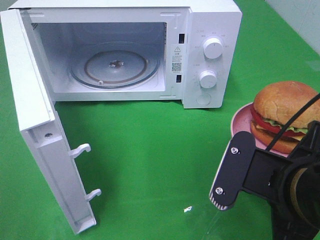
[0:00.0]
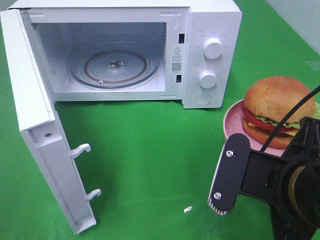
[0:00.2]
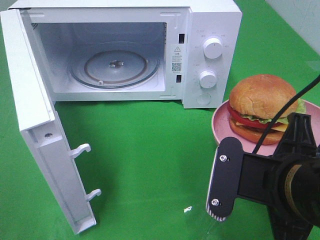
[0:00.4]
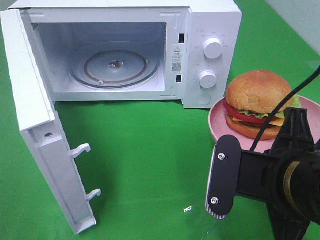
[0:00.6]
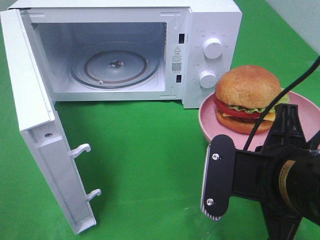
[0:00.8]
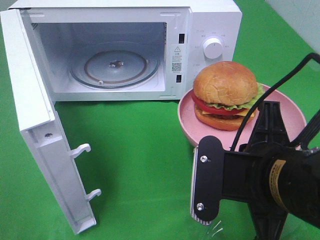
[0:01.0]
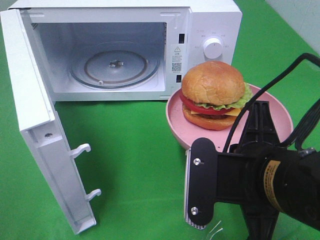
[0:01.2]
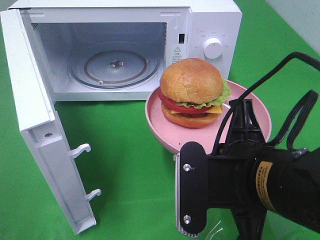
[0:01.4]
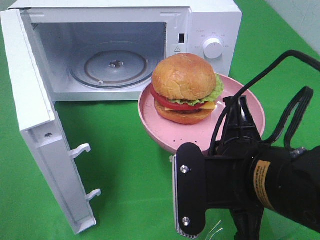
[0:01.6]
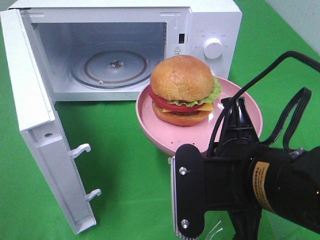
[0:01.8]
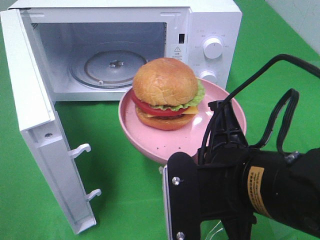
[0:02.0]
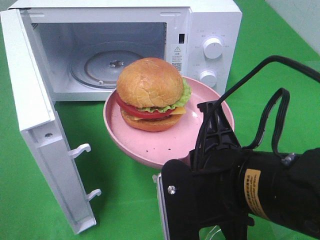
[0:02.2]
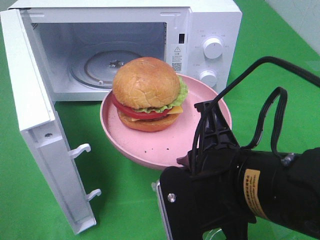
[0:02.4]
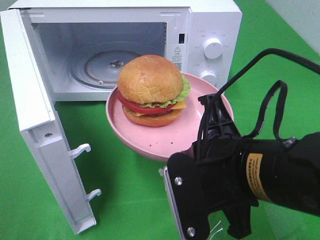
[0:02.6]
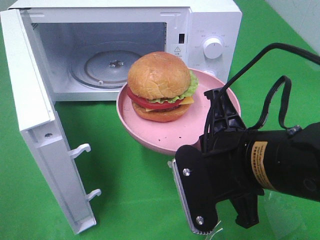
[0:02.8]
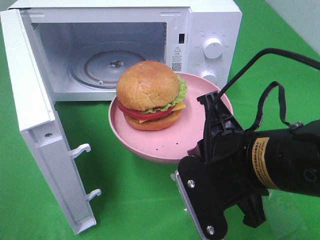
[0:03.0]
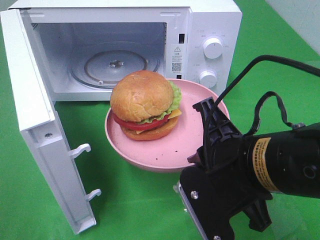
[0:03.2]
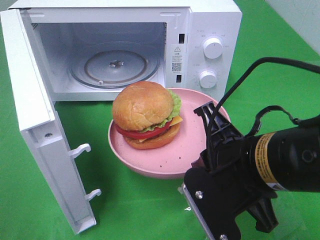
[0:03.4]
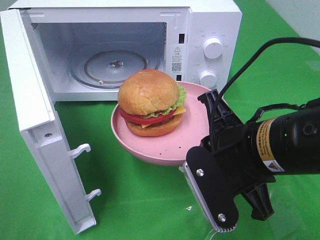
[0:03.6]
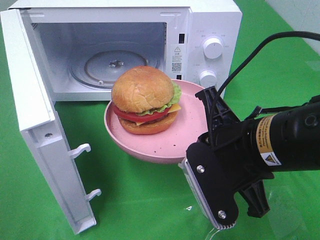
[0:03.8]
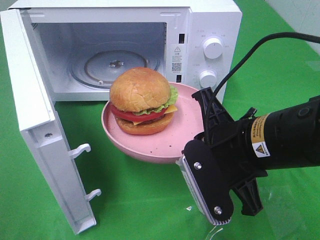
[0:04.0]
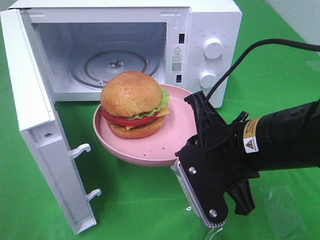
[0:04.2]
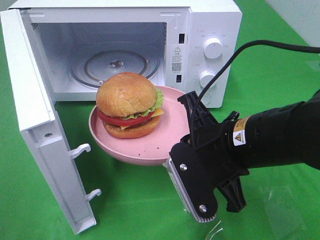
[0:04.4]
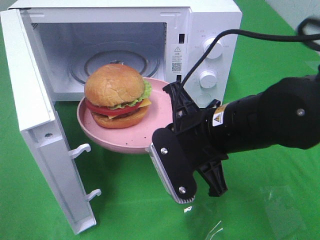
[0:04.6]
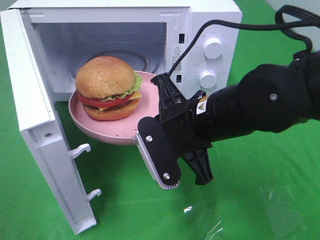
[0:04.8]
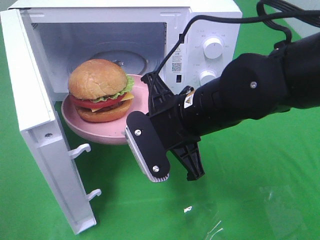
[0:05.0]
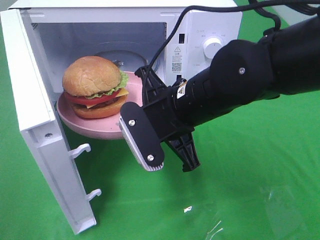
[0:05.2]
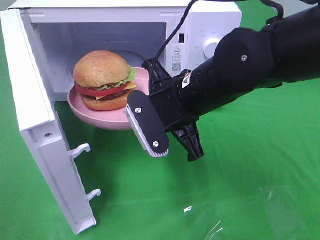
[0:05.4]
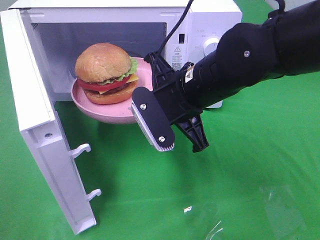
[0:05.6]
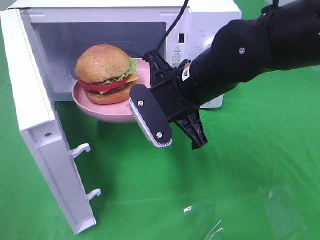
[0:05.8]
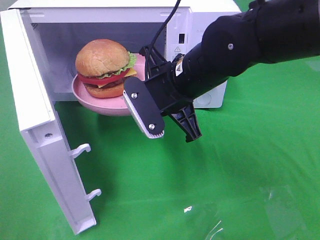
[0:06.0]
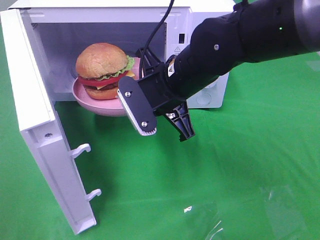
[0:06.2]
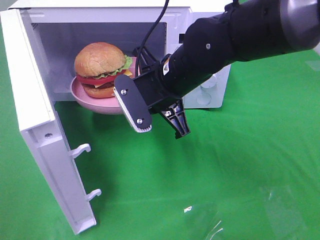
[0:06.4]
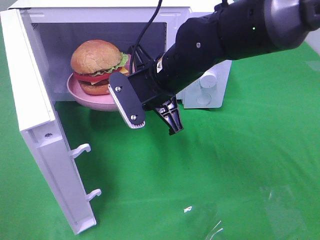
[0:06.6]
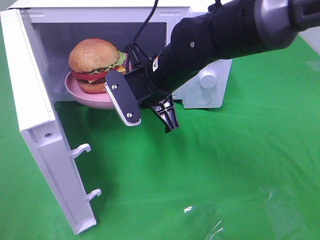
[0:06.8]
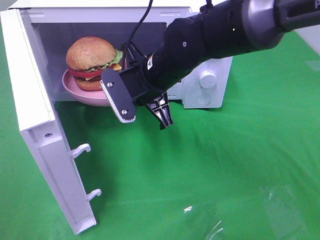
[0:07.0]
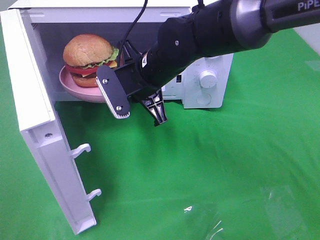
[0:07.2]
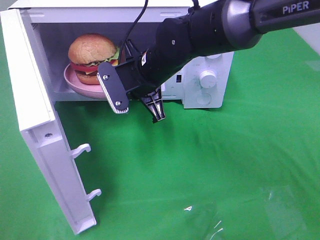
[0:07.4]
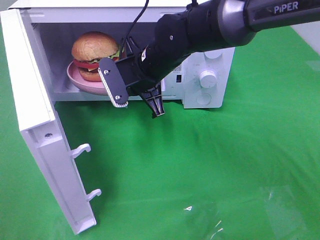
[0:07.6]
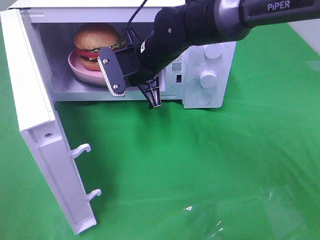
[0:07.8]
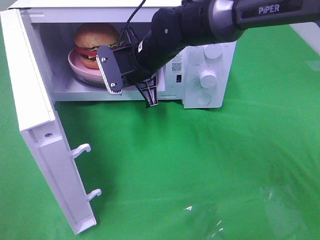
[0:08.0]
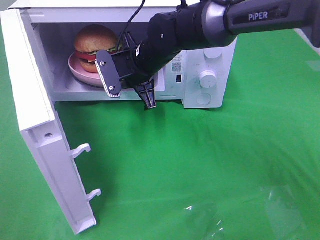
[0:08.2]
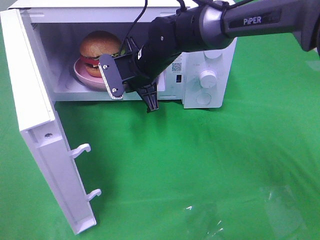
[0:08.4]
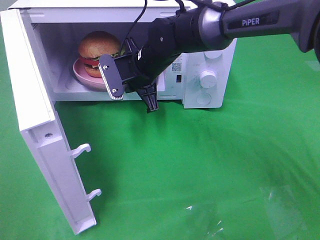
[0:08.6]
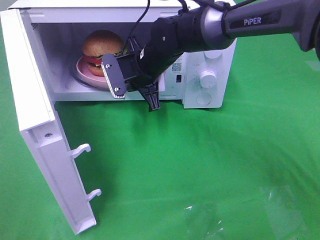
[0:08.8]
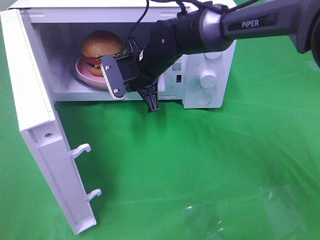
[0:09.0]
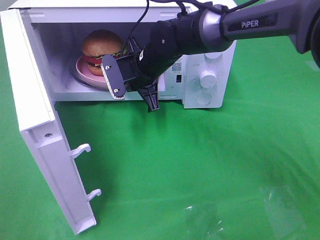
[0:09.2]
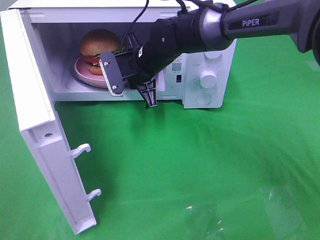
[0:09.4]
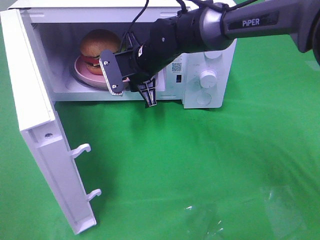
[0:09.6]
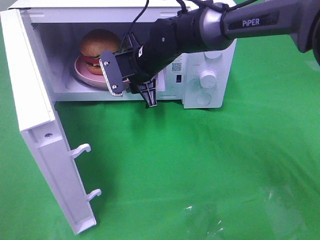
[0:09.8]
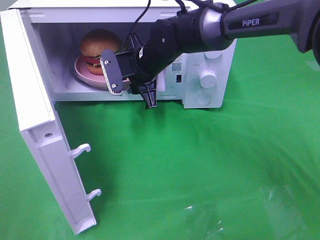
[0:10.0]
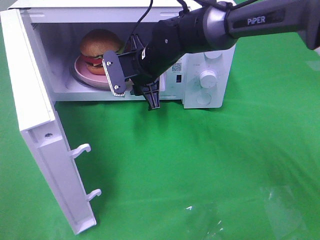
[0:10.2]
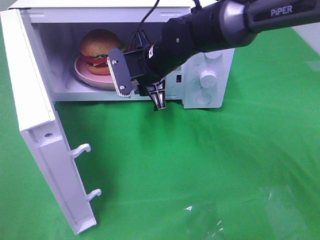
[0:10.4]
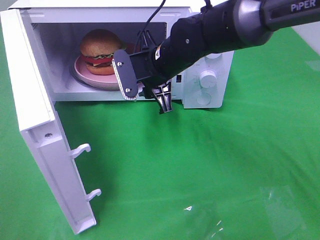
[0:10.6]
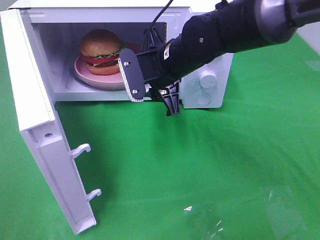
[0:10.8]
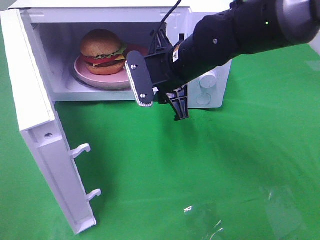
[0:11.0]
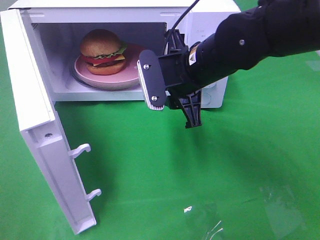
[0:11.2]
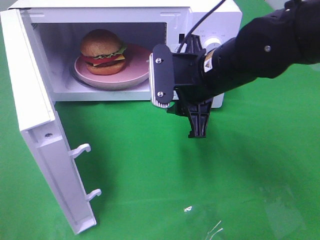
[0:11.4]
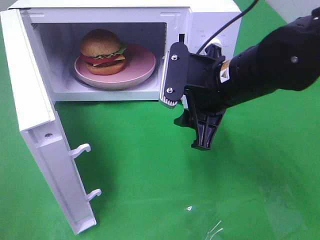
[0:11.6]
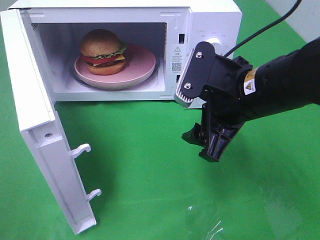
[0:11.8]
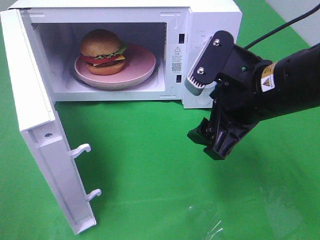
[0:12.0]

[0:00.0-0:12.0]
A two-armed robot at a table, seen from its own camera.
Task of the whole recording: Heat the burger.
Step, 0:00.0 to 0:10.4: Right hand: place the plate in the microwave.
0:04.4 to 0:06.0: The right gripper travels forward and to the left by some 10 cm.
0:06.0 to 0:07.6: The right gripper heads forward, covering some 10 cm.
0:07.6 to 0:09.0: The grippers stay close to where they were, moving slightly.
0:09.0 to 0:10.4: The right gripper opens.
0:10.4 to 0:12.0: The right gripper is displaced backward and to the right by some 20 cm.

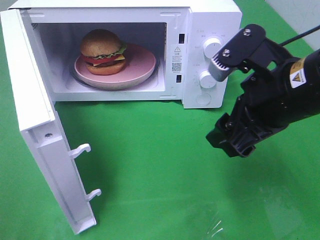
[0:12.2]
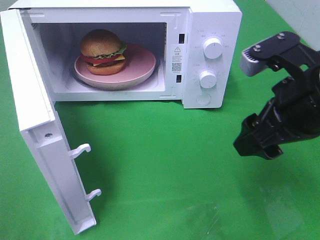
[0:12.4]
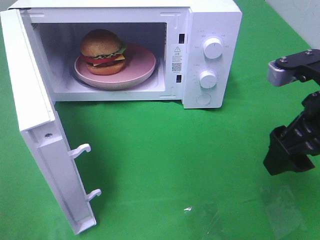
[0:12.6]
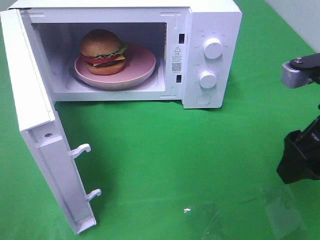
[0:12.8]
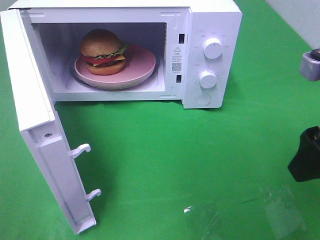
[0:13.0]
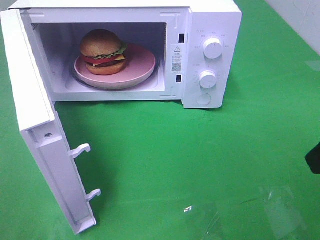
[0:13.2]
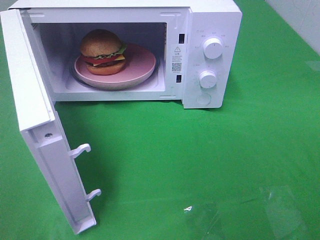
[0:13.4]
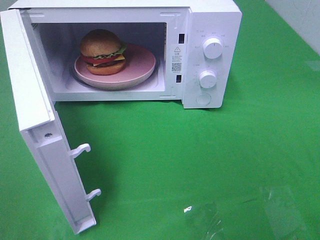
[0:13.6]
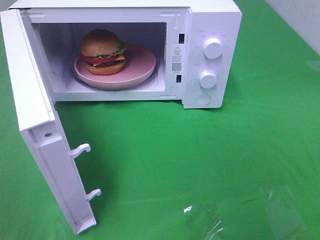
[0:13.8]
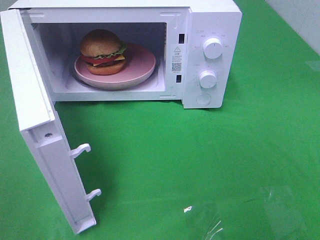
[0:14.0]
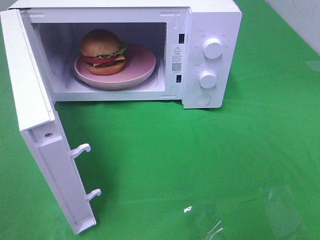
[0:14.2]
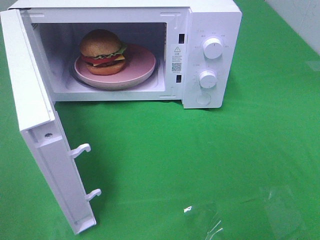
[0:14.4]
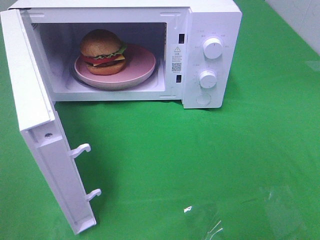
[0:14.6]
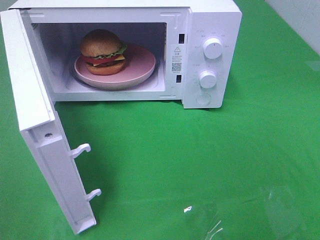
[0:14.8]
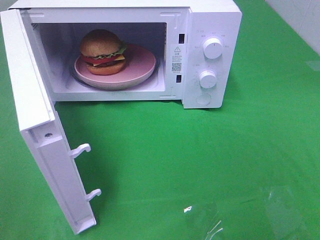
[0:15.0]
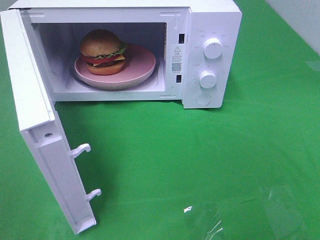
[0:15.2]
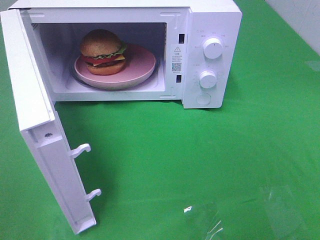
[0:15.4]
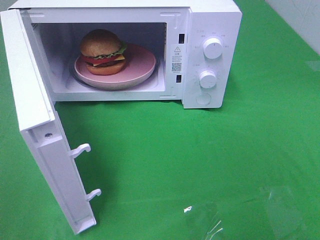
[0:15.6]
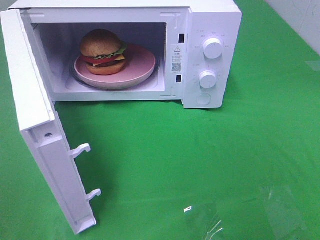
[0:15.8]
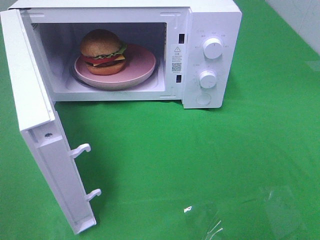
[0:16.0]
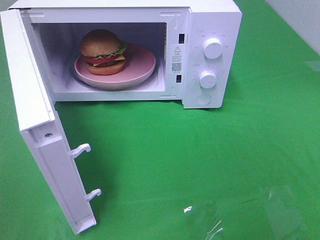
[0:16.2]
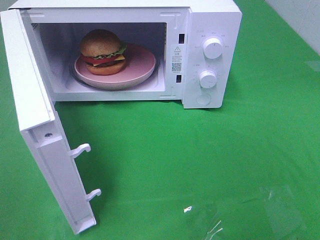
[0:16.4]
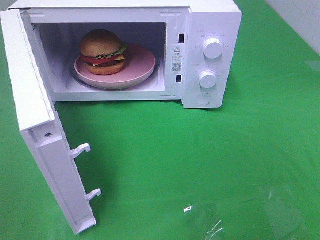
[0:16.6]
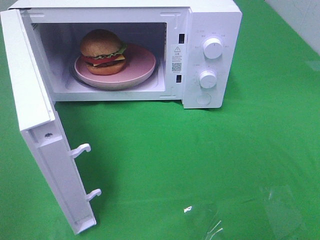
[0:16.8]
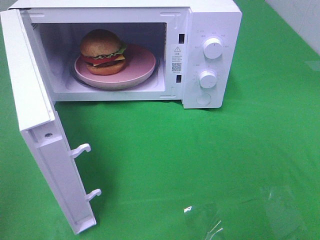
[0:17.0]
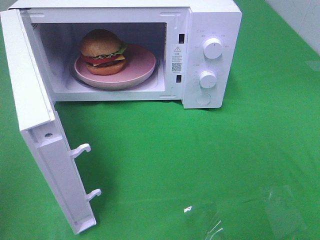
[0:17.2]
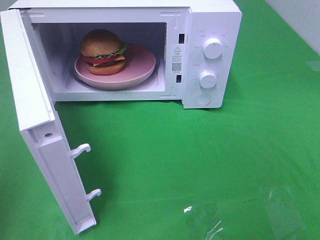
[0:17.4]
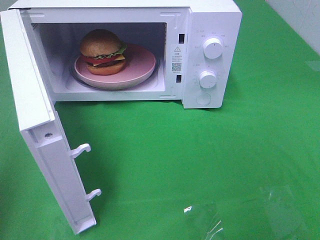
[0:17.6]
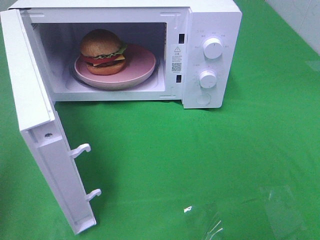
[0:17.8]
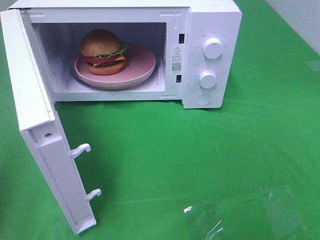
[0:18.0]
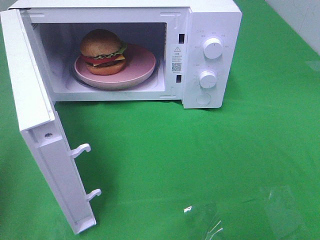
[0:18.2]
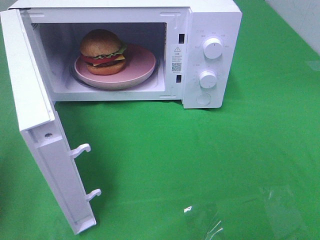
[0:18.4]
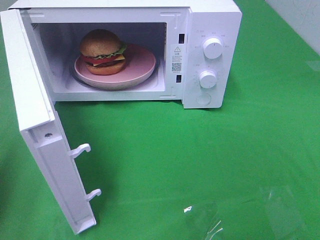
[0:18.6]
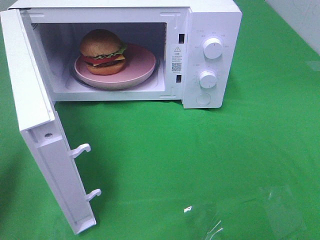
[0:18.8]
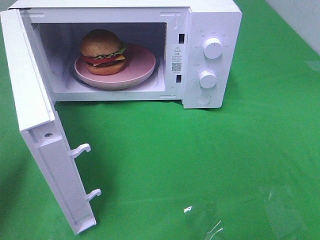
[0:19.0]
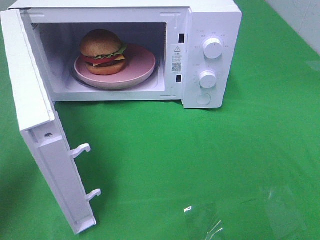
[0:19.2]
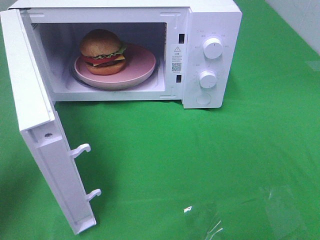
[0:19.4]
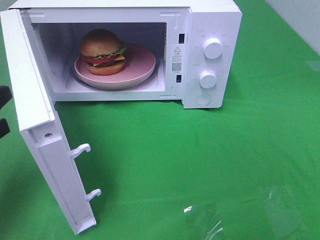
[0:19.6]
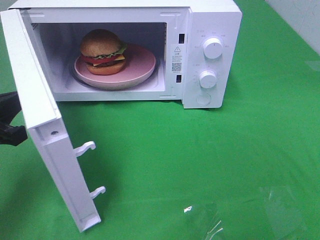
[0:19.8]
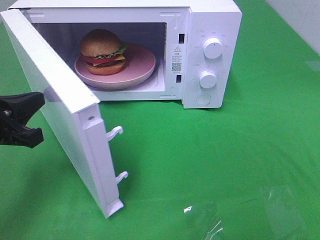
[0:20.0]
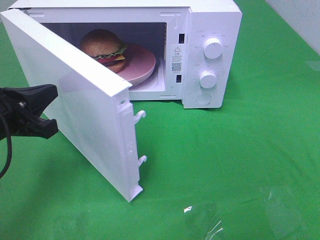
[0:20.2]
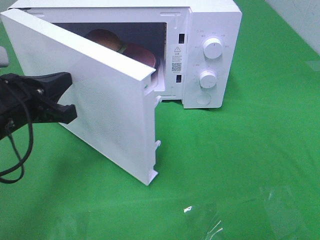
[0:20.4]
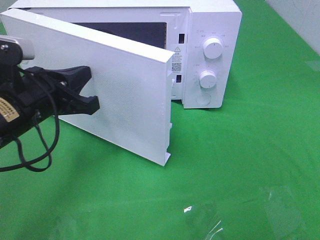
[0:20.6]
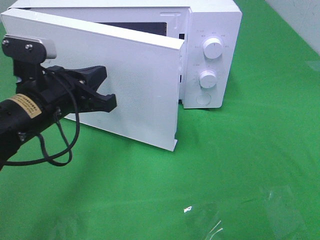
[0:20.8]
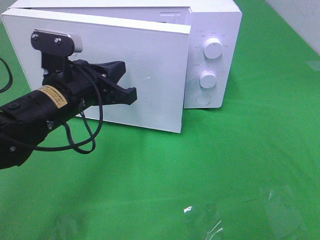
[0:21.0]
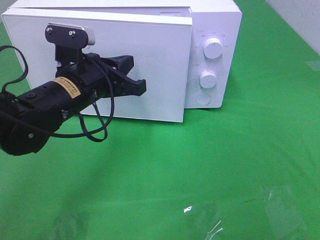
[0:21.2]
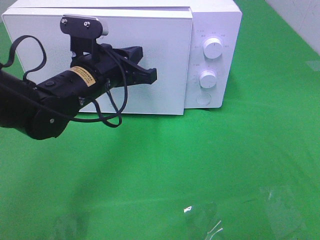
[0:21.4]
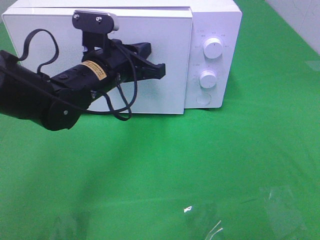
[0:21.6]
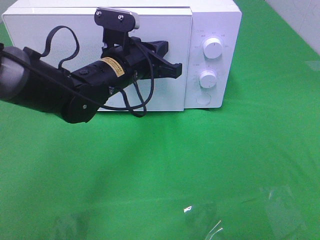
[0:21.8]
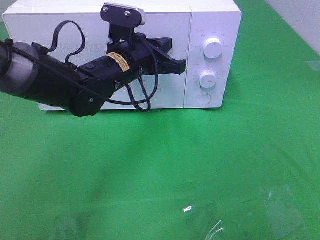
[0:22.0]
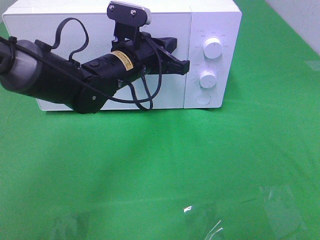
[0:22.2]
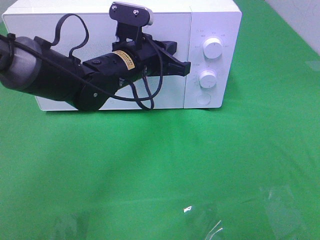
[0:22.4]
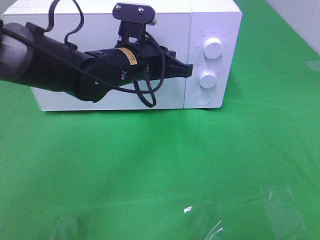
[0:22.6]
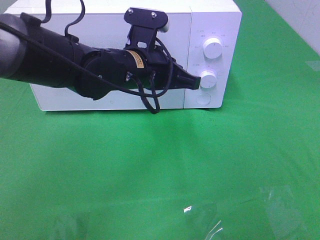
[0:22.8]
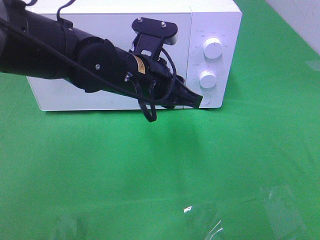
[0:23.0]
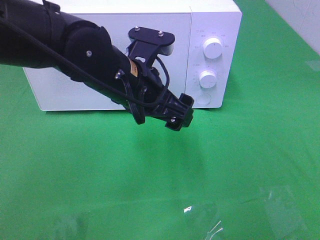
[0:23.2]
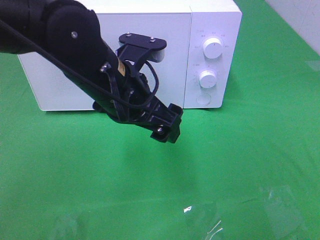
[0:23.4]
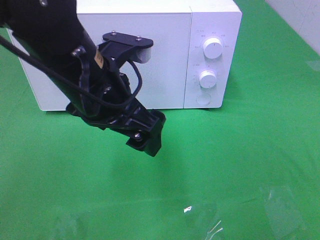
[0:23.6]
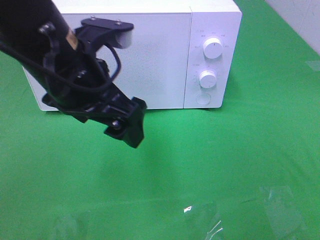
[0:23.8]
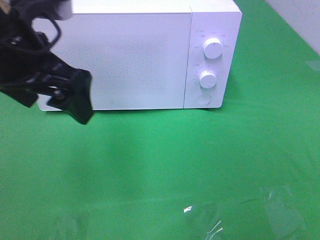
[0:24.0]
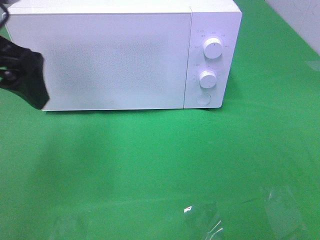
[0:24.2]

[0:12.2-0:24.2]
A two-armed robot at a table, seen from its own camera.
Task of the whole recording: Heat the burger.
Step, 0:12.2 to 0:22.6: Left hand: close the microwave door.
0:12.2 to 0:13.8: The right gripper travels backward and to the right by about 20 cm.
0:18.2 to 0:19.8: The left gripper shifts some 15 cm forward, downward and to the right.
0:19.8 to 0:21.2: The left gripper heads to the right and forward, covering approximately 20 cm.
0:21.2 to 0:22.6: The left gripper shifts approximately 10 cm to the right.
0:22.6 to 0:24.2: The left gripper travels to the left, upward and backward by roughly 25 cm, and opens up.
